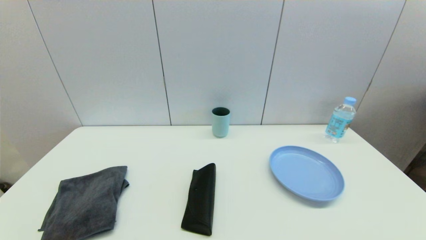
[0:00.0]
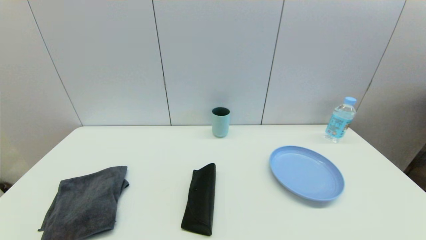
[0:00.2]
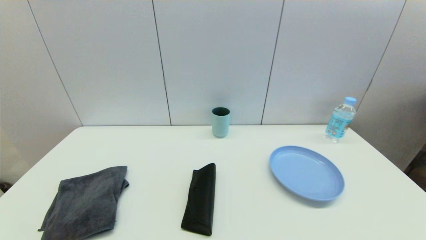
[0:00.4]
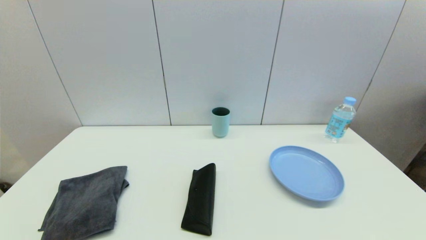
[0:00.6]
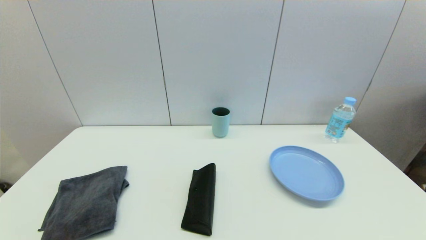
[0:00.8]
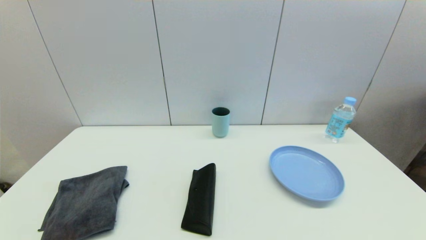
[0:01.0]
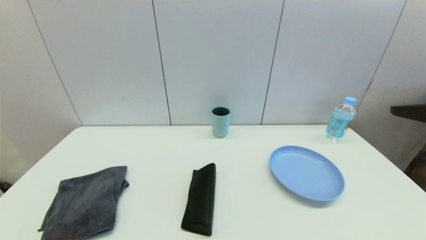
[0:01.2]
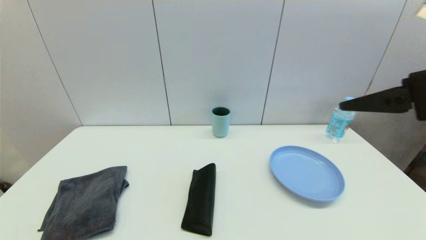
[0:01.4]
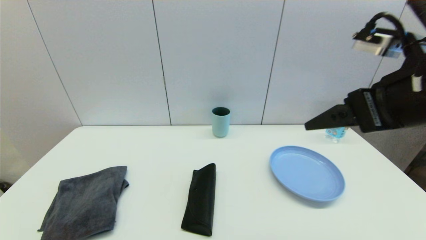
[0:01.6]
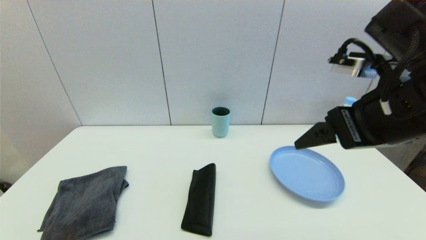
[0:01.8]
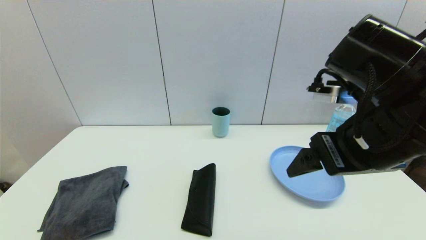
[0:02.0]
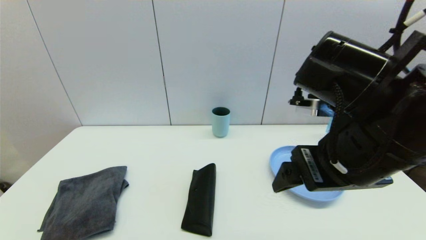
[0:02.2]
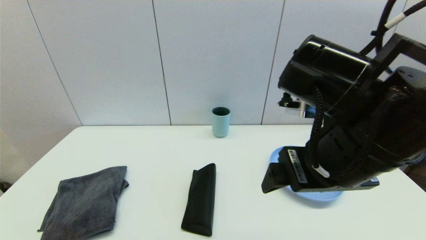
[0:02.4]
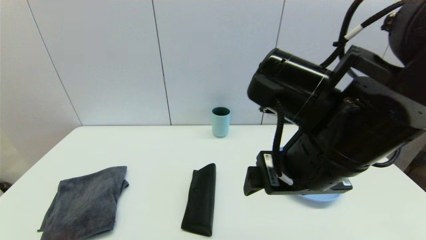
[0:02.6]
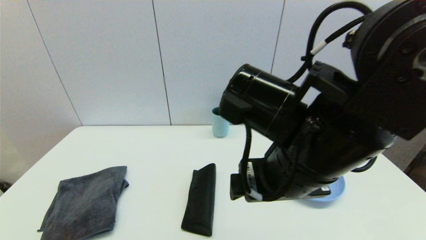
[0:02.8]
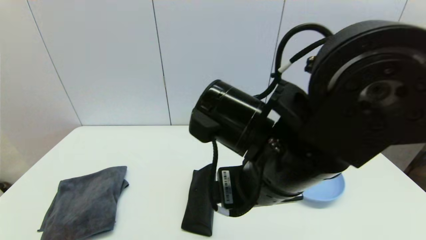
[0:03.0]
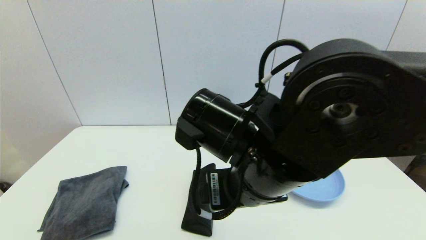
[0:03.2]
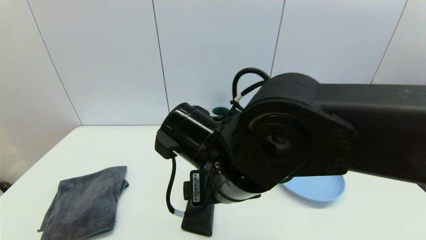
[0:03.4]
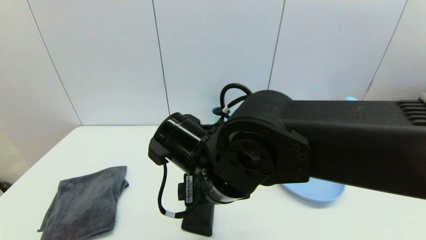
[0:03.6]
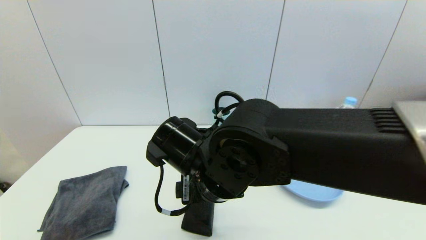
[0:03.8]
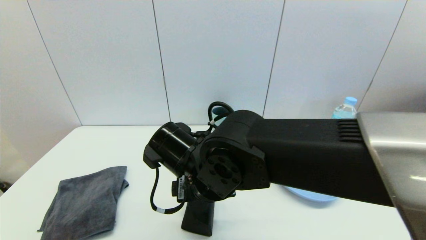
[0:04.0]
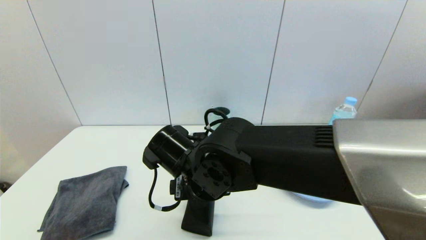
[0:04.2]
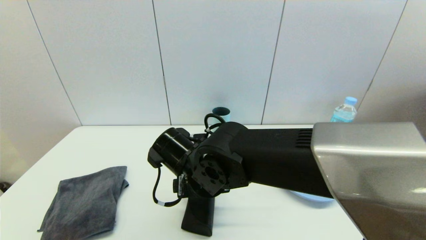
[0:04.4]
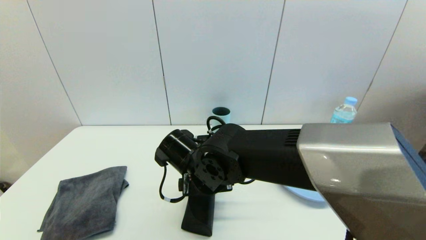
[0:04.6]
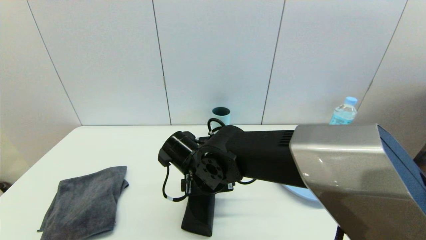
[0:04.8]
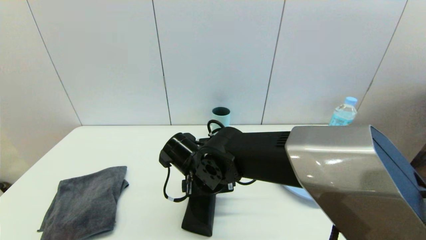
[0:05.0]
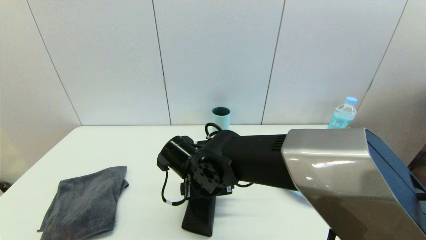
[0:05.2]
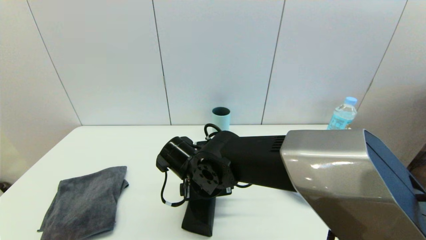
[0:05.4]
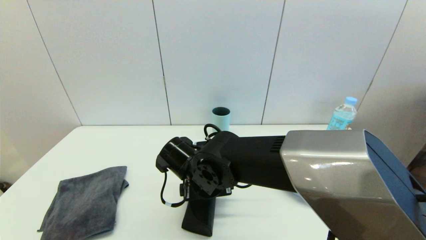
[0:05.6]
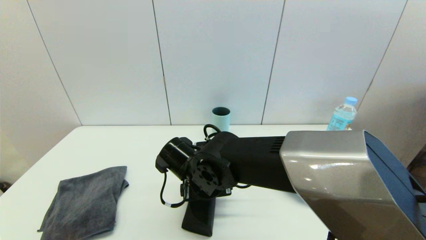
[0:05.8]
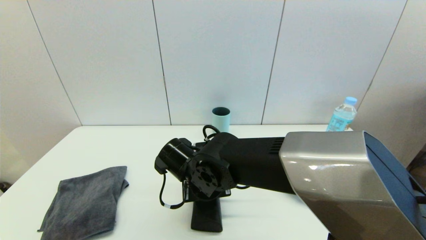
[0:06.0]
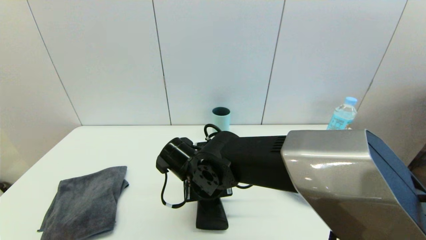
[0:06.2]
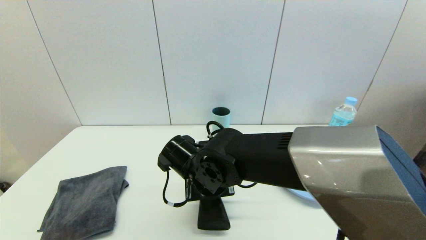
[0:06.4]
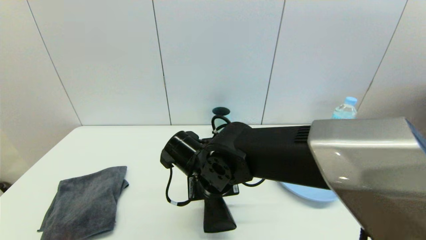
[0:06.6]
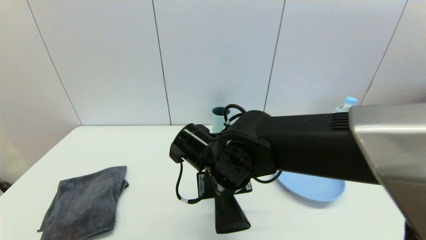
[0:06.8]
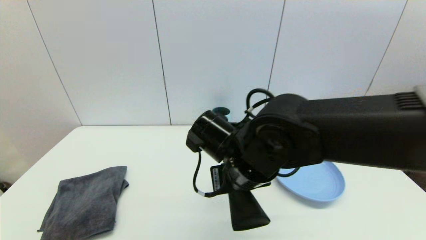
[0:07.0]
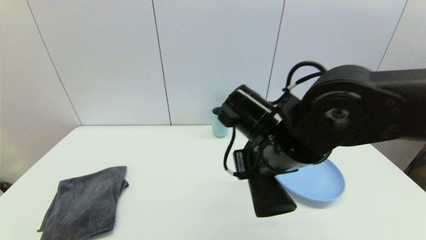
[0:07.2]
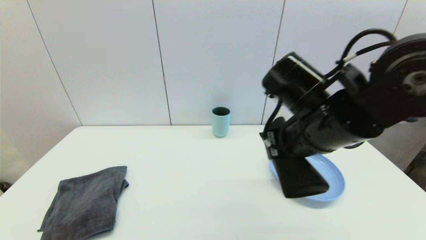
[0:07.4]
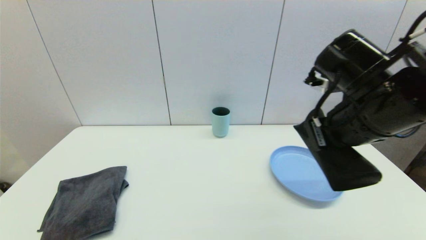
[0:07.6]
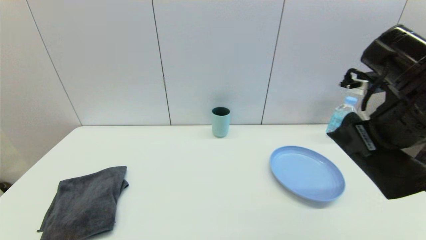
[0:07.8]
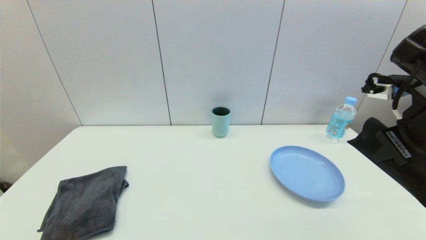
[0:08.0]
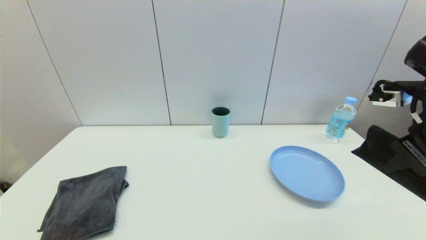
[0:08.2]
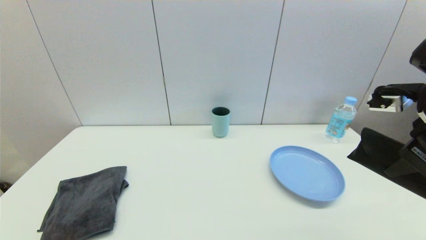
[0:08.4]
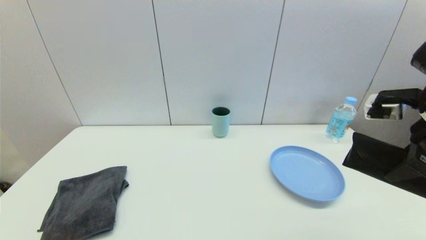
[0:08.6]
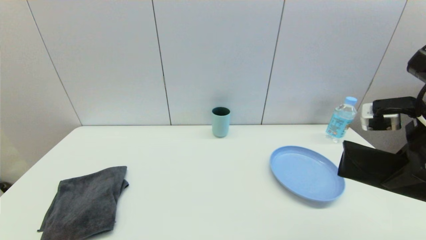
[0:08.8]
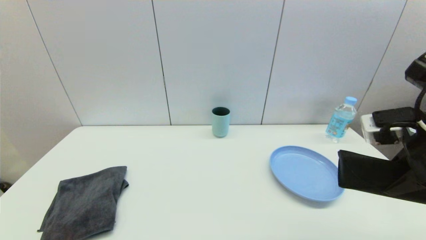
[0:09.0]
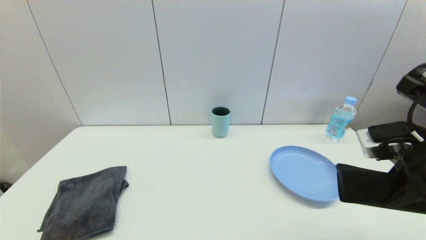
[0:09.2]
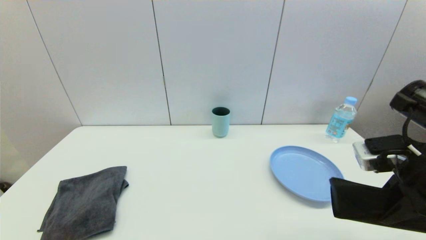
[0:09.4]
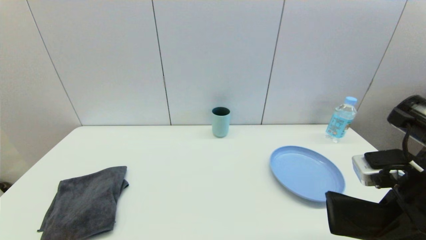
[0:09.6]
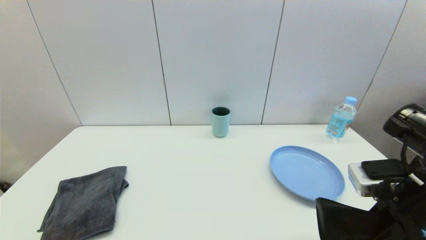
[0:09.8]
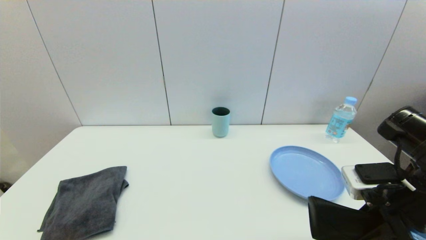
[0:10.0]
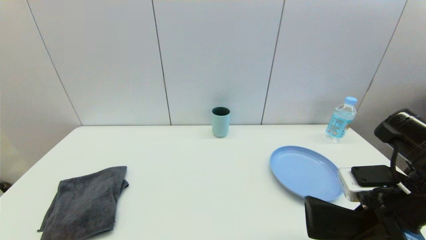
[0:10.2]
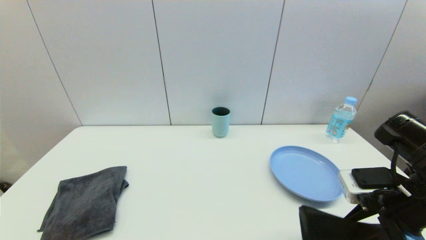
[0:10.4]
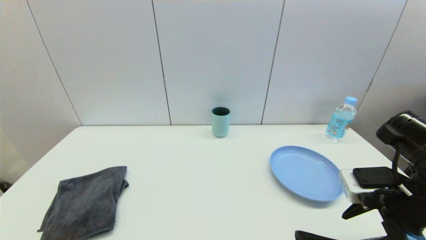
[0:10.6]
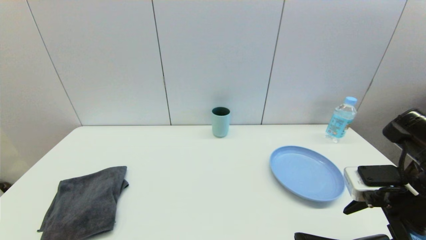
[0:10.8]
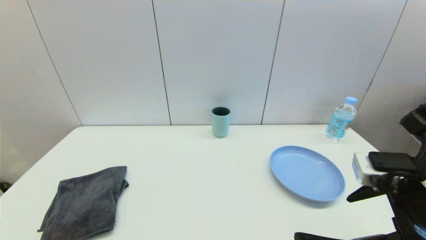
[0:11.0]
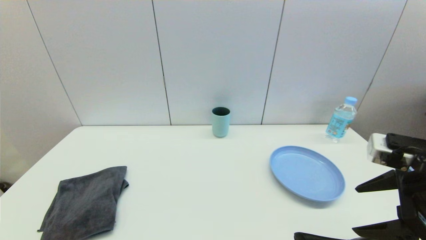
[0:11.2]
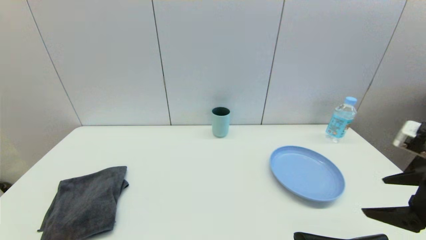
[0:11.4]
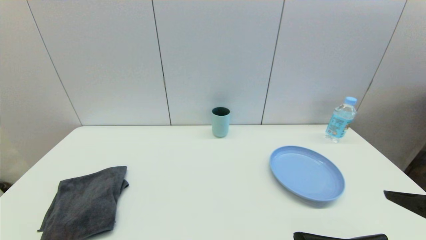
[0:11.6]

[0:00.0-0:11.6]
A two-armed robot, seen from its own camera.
Step, 0:01.2 to 0:06.2: Grasp the glasses case with right gripper.
Step, 0:06.4 to 0:10.6: Place the glasses case on the table with right gripper.
0:00.0 to 0:01.4: The right gripper shifts roughly 30 cm upward and forward.
0:01.4 to 0:02.8: The right gripper goes roughly 20 cm to the left and downward.
0:02.8 to 0:04.4: The right gripper goes about 20 cm downward, to the left and forward.
0:04.4 to 0:05.8: The grippers stay close to where they were, moving slightly.
0:05.8 to 0:07.2: The right gripper moves to the right and upward, some 15 cm, and closes its fingers.
0:07.2 to 0:08.8: The right gripper shifts approximately 20 cm to the right.
0:08.8 to 0:10.2: The right gripper heads downward, covering roughly 10 cm.
0:10.2 to 0:11.6: The right gripper is displaced backward by roughly 10 cm, and opens.

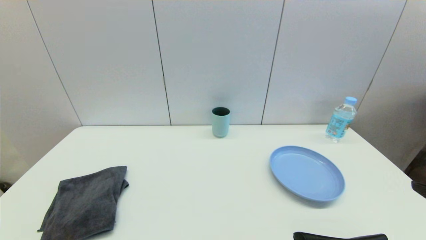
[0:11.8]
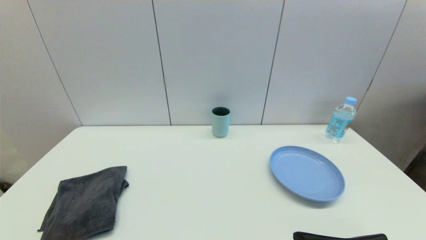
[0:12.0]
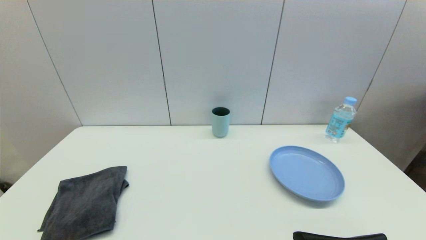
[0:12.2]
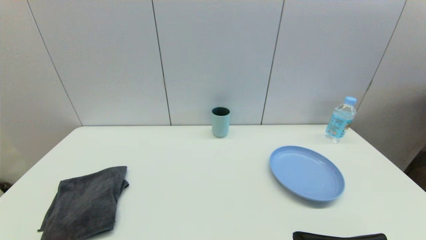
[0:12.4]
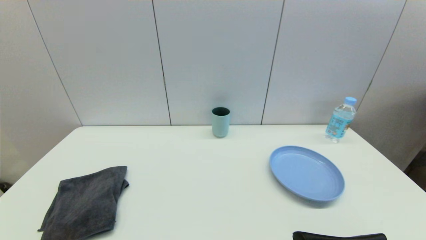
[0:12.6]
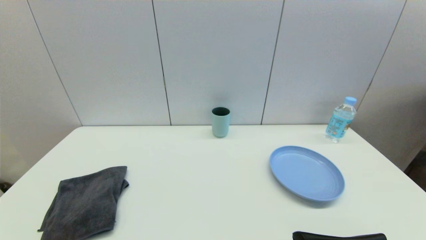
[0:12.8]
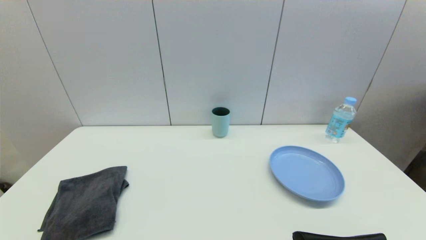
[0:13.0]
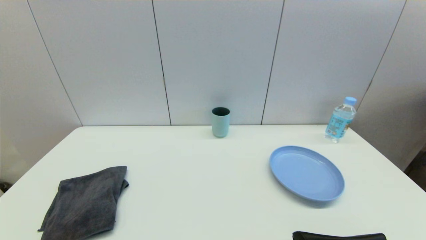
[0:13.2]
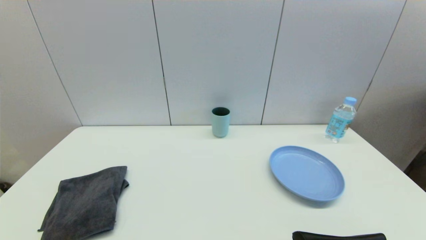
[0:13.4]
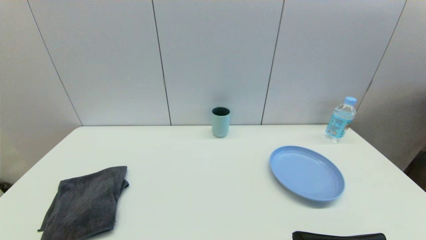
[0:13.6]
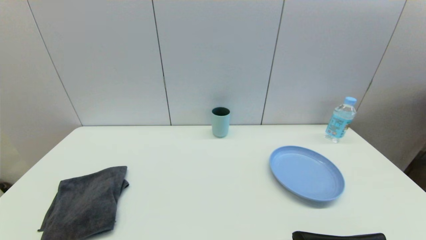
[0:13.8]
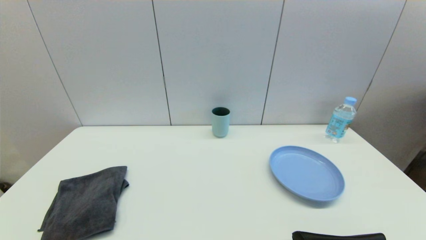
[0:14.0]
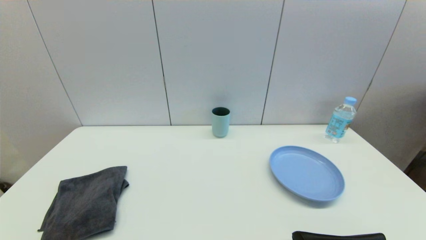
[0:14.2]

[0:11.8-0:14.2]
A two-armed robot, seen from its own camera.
0:13.0 to 0:14.2: Both grippers stay put.
